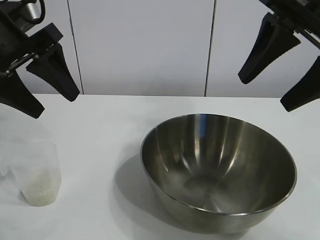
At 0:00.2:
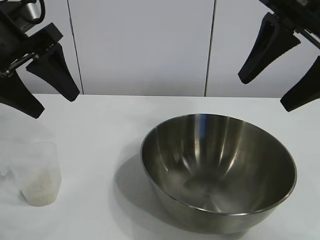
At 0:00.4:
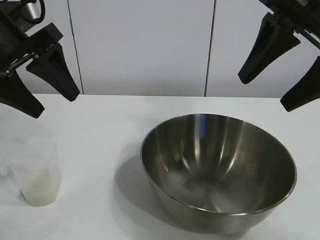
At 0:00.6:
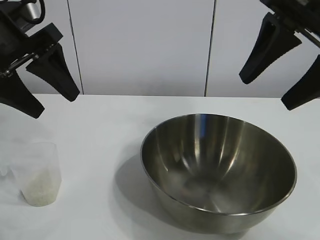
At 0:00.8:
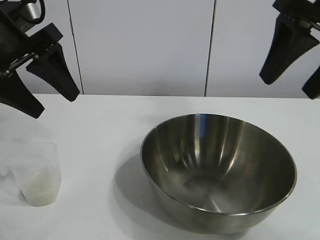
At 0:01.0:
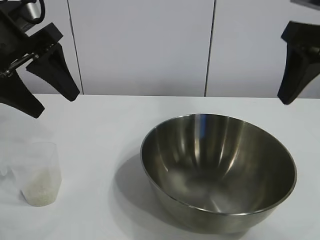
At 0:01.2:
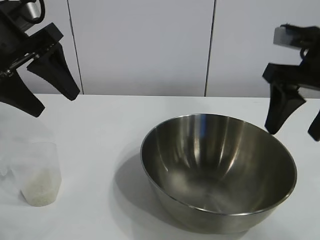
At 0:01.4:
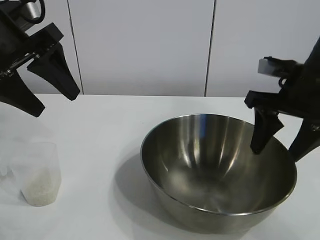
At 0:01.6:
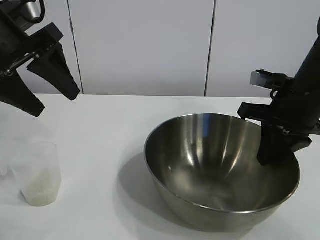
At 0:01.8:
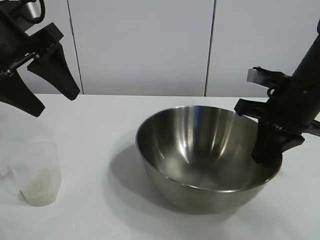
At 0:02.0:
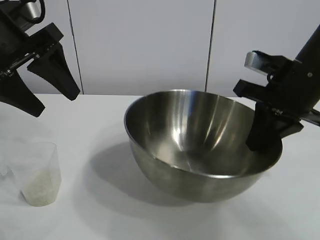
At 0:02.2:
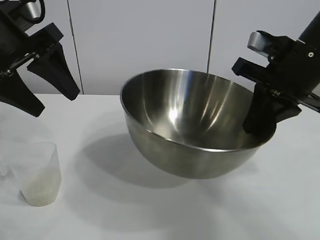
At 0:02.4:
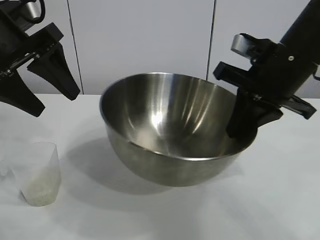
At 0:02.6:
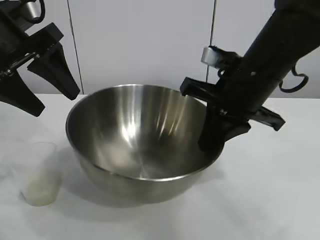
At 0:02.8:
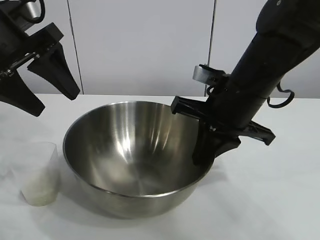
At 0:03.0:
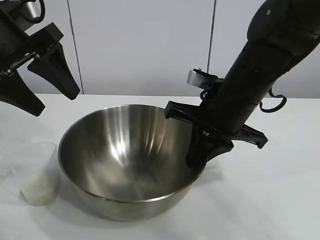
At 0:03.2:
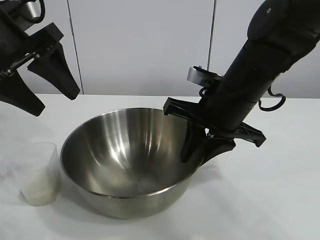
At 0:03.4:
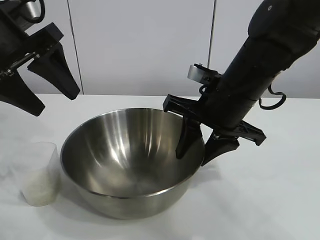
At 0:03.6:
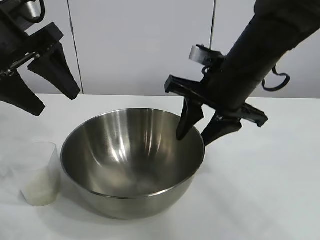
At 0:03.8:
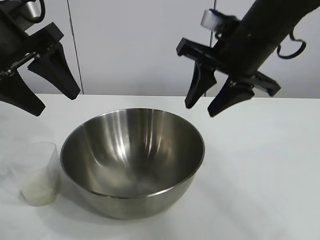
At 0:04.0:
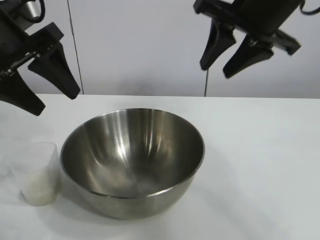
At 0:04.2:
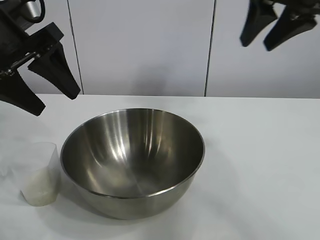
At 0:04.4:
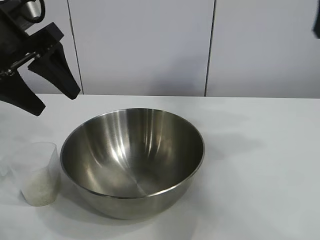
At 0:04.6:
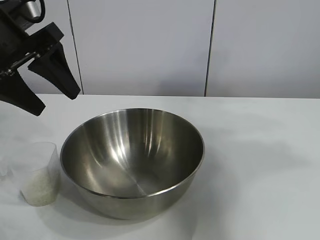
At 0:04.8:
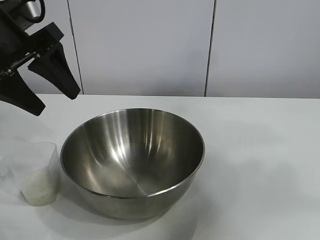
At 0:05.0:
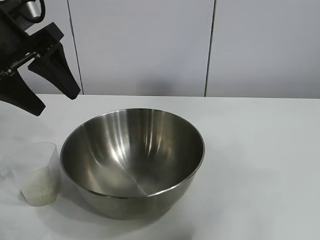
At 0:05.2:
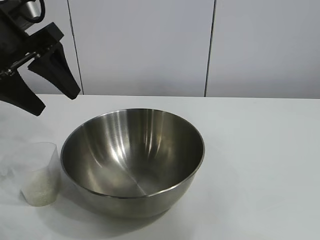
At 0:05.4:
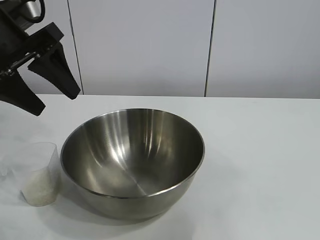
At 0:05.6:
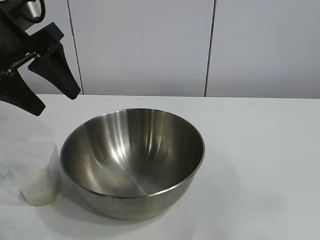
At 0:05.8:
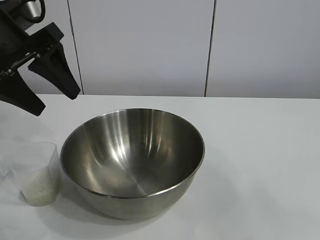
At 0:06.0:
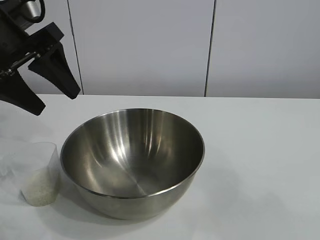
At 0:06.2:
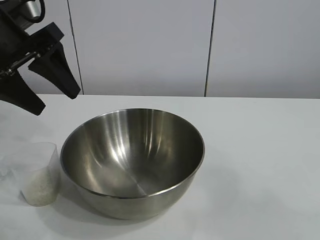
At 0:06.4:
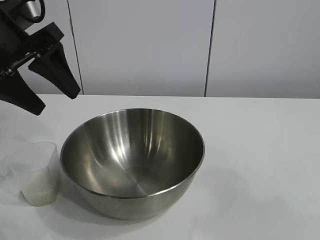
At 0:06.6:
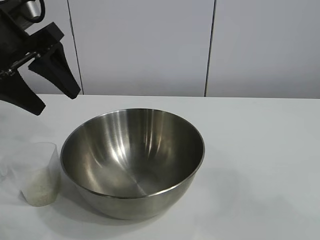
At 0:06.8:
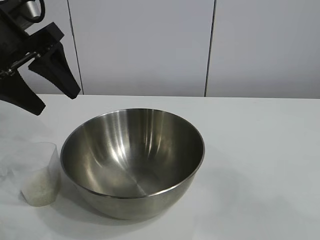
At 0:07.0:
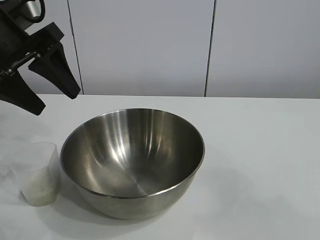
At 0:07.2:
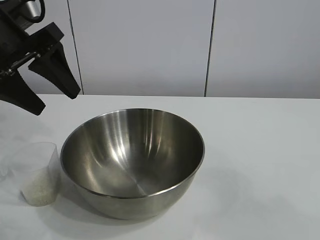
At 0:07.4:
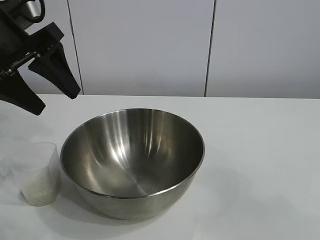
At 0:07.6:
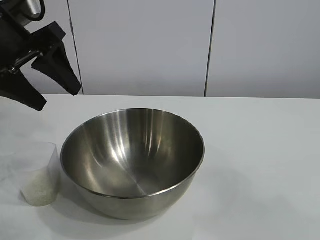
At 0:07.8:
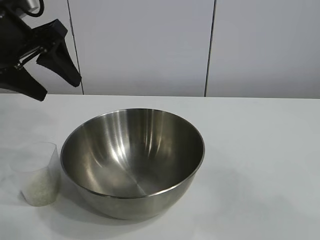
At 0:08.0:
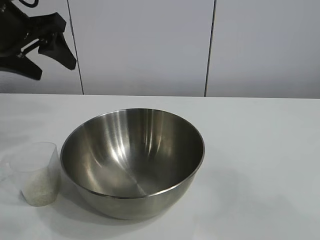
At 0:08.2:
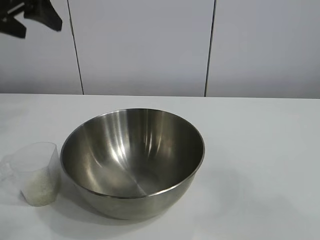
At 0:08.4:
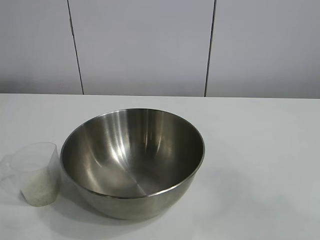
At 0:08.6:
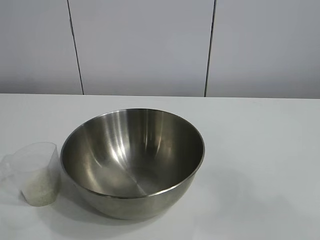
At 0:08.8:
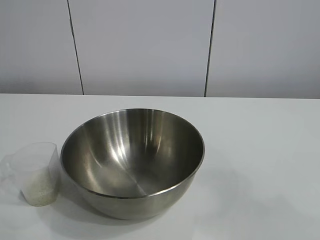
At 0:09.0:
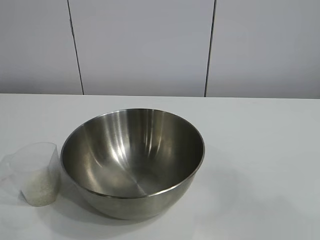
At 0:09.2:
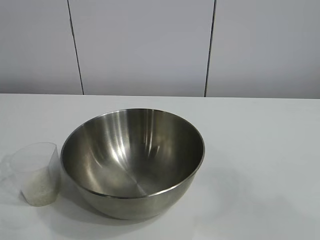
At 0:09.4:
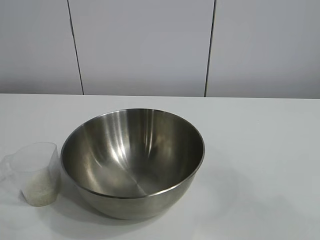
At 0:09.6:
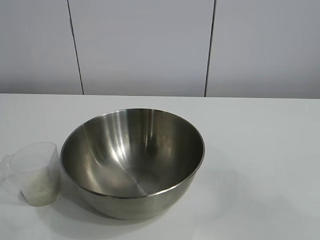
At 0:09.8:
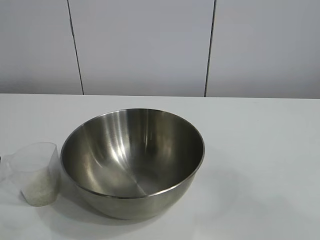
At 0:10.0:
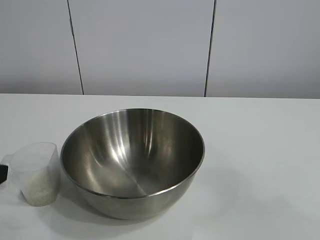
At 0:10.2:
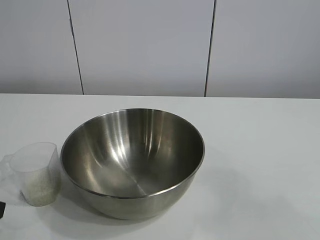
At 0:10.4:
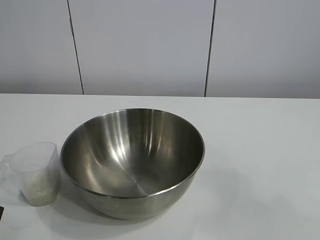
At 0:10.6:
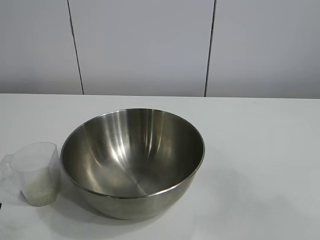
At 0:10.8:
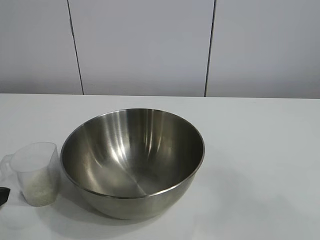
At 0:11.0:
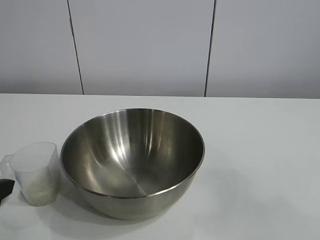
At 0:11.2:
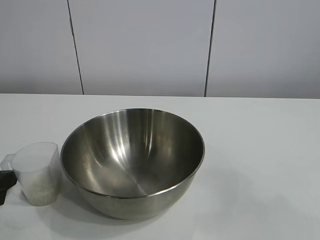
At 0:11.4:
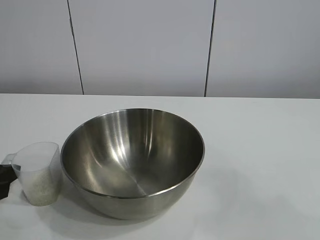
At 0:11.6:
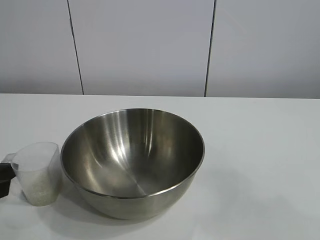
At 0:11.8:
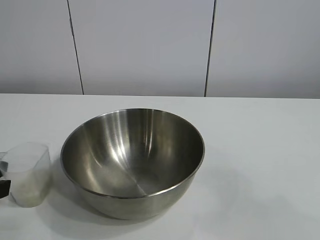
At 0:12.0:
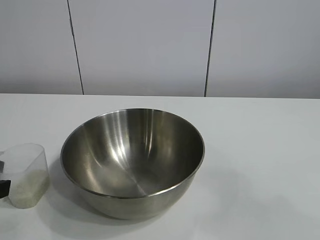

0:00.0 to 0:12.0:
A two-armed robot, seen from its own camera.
Task of the whole recording: the right gripper grasp the rice container and place it in the center of the table, the left gripper grasp the rice scoop and pour the rice into the rice container.
Step, 0:00.6 to 0:03.2: Move the bowl in the center of view with right gripper.

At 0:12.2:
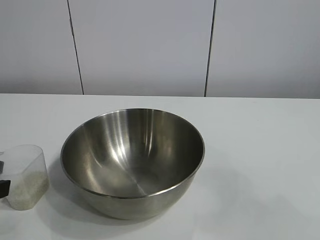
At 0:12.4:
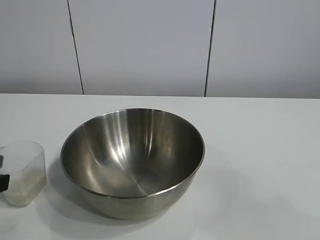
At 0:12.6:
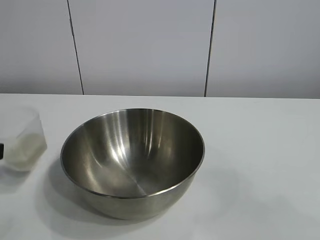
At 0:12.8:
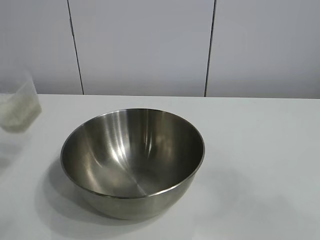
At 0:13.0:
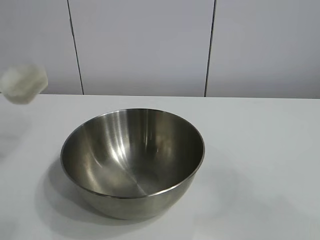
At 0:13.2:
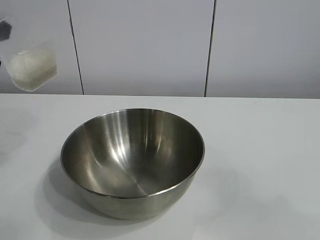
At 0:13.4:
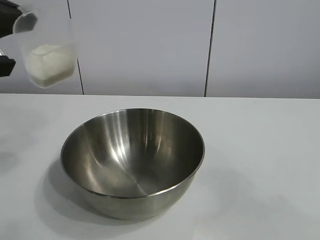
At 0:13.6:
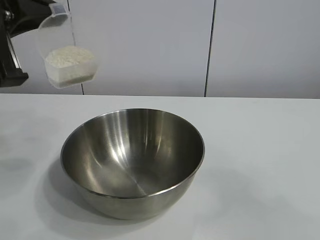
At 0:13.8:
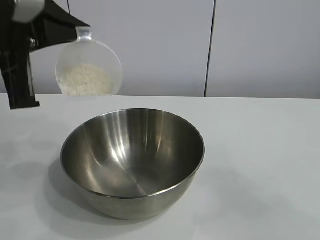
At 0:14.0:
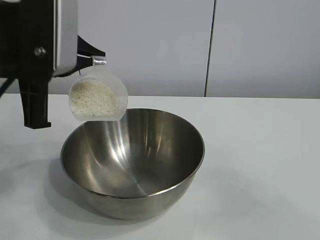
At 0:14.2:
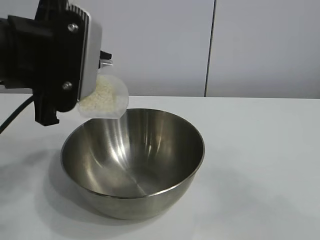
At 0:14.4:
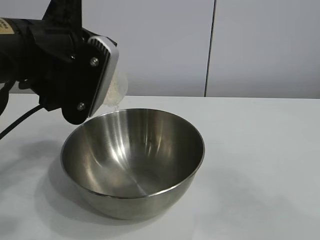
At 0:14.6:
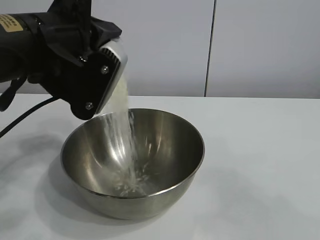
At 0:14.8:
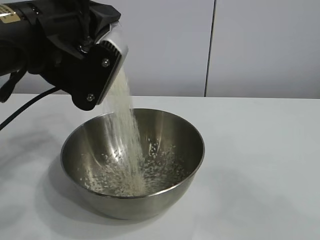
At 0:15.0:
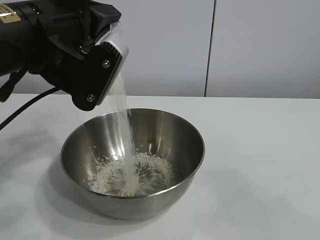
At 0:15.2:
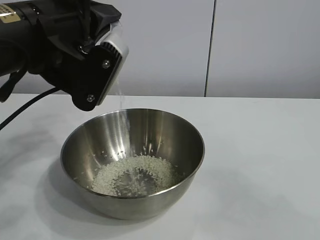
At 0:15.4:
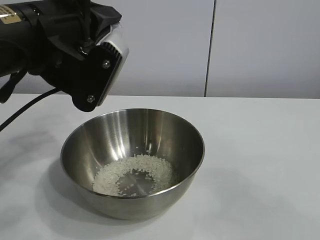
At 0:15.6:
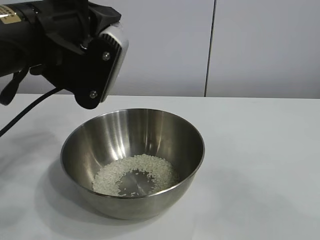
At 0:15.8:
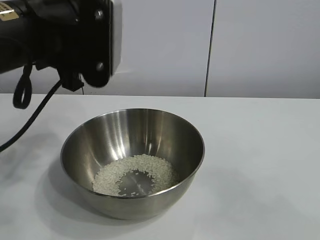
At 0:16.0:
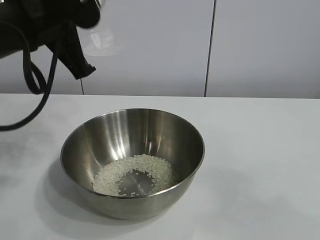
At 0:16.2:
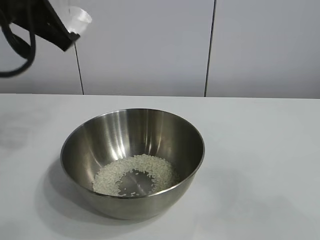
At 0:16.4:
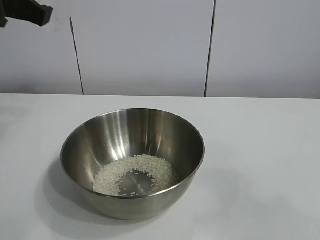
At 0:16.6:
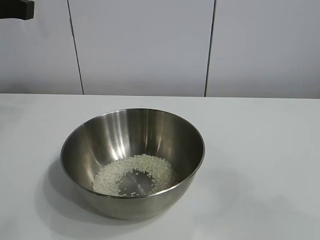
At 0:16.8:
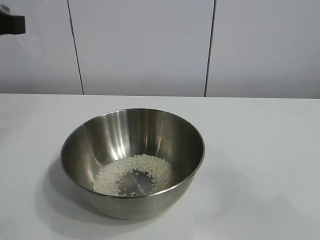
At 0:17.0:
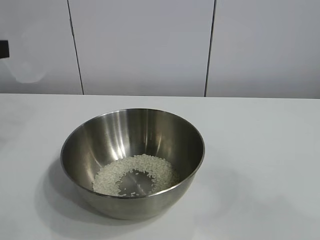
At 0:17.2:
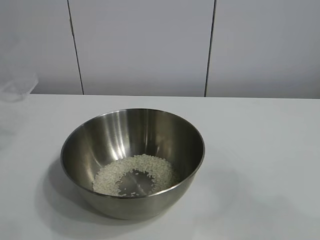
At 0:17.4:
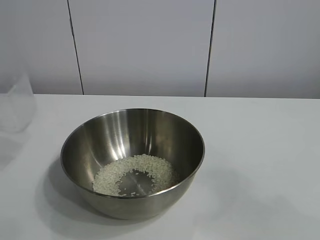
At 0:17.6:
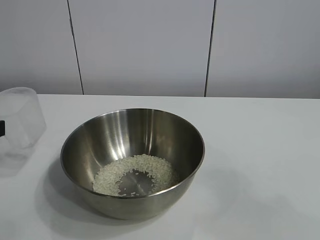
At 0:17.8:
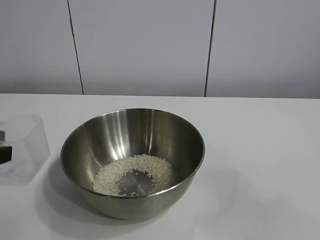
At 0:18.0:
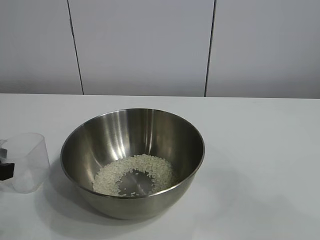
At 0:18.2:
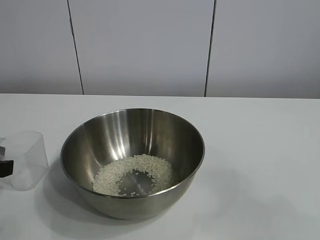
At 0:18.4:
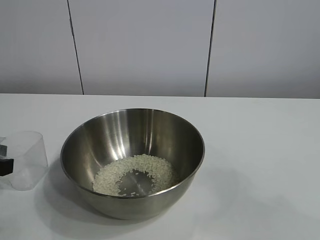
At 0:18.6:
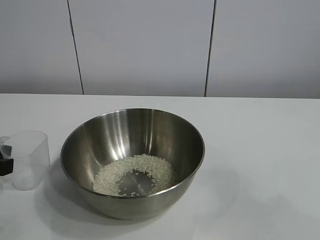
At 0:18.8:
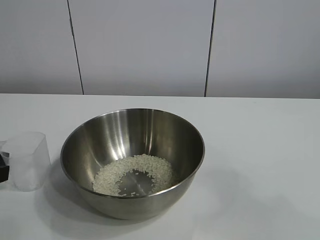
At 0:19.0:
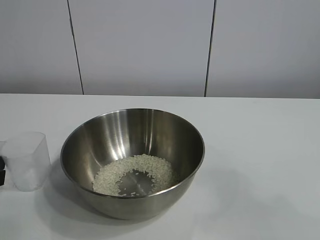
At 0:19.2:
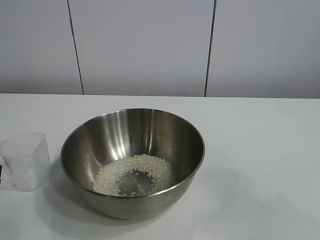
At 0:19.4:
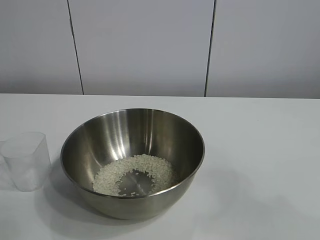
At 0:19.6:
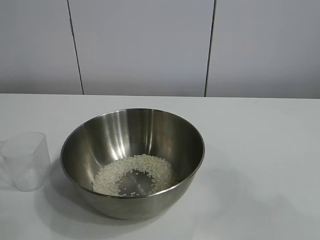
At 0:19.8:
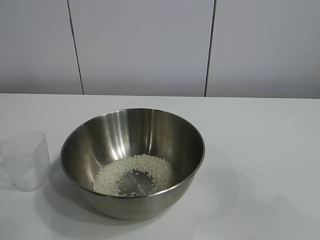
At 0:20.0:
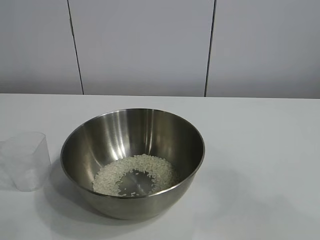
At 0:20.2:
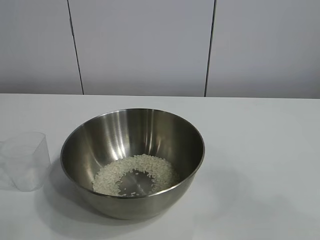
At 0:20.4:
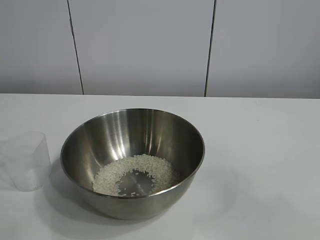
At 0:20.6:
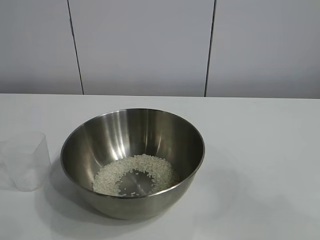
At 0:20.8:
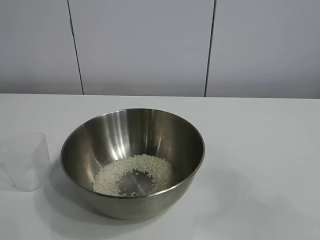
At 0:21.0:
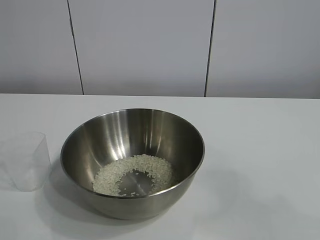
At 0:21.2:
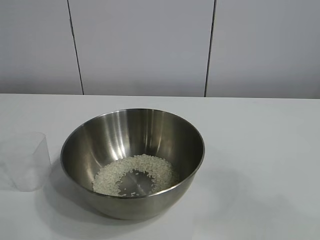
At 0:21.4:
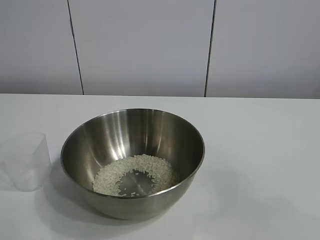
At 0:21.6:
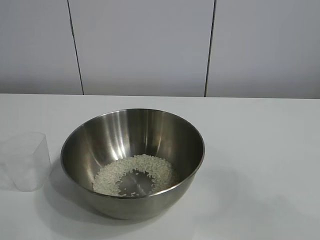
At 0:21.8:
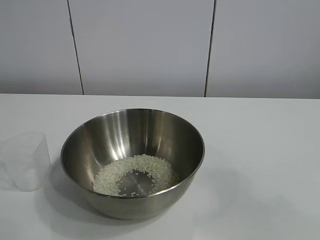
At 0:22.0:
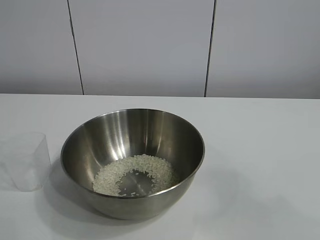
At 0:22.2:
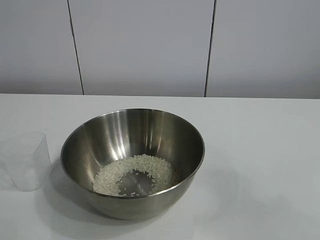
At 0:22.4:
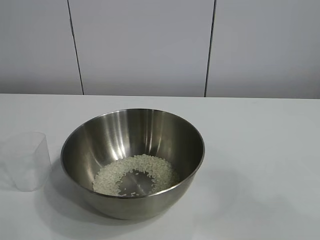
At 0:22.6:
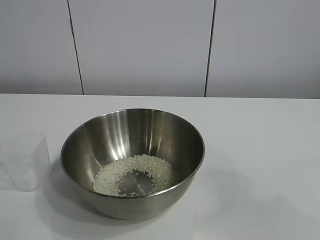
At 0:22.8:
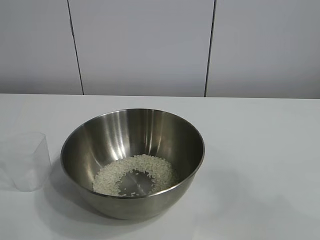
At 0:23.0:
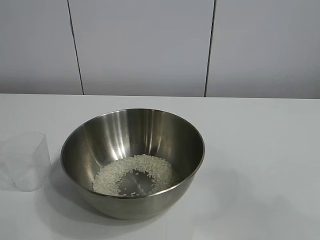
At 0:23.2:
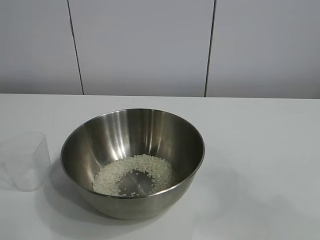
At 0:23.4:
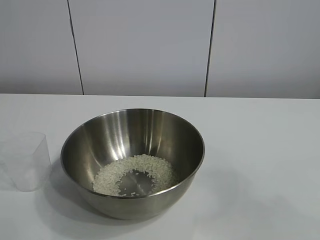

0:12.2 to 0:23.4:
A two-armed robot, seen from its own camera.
Task of the whole recording: the right gripper grasp the rice container and place it in the center of the table, the left gripper grasp the rice scoop and pour the rice into the rice container.
Step, 0:12.2 to 0:15.4: Pour the rice from the cup into the bowl with the left gripper.
Step, 0:15.6 to 0:19.0: Place the cup on the table with the left gripper.
